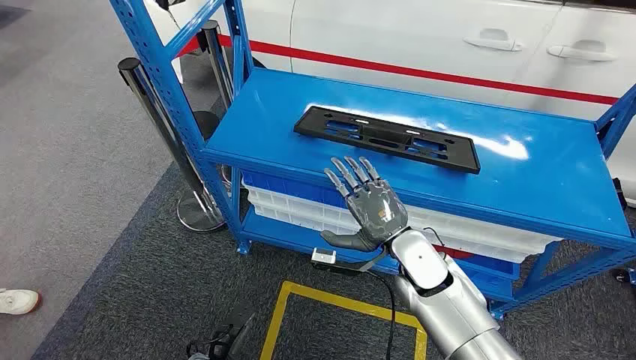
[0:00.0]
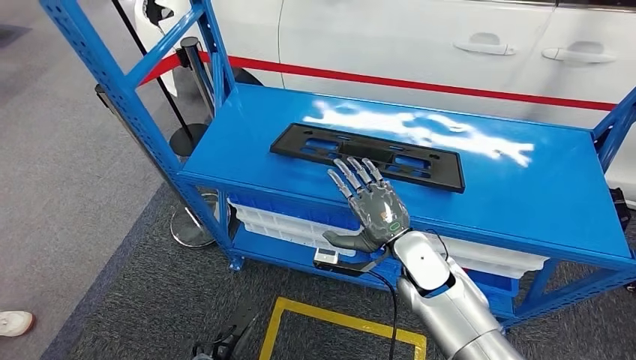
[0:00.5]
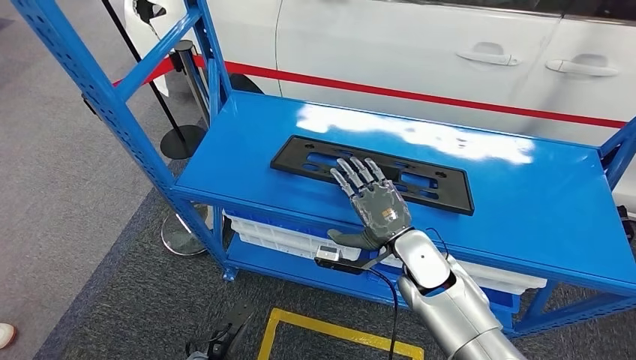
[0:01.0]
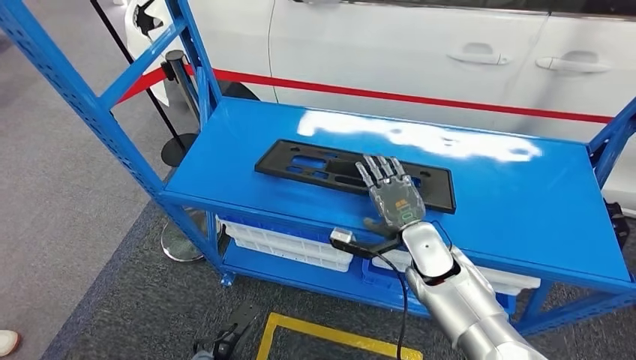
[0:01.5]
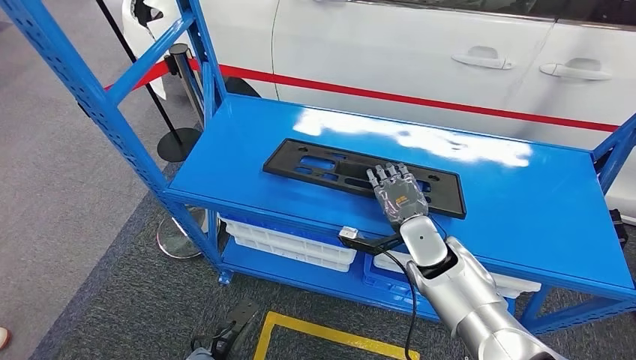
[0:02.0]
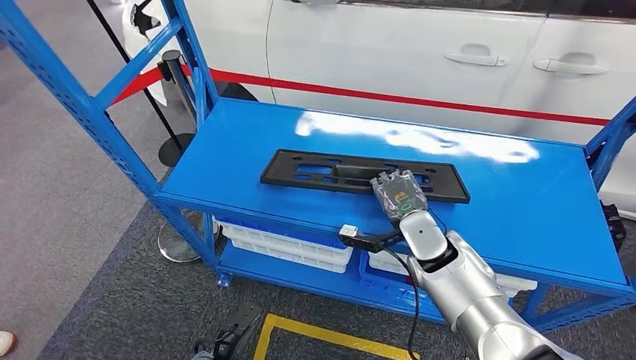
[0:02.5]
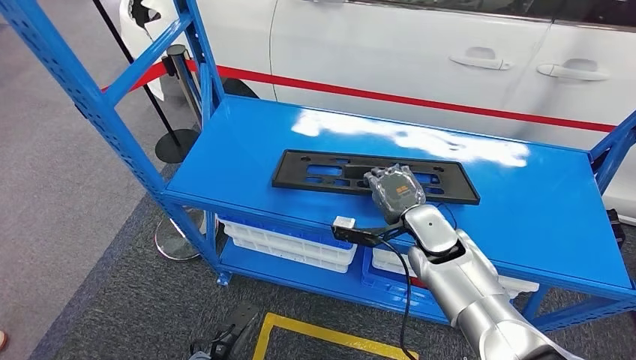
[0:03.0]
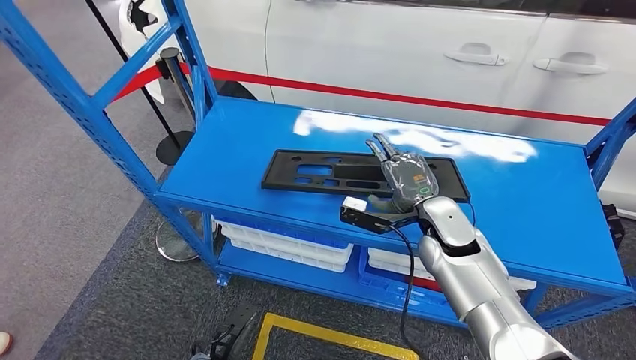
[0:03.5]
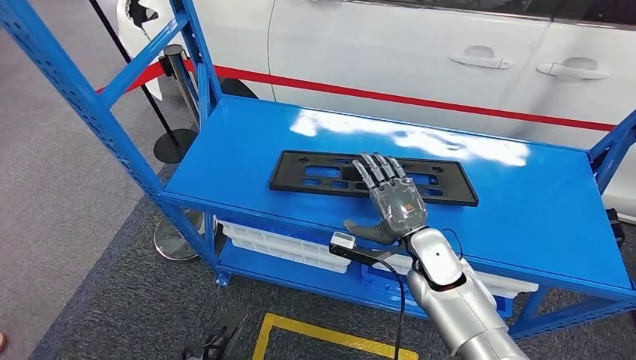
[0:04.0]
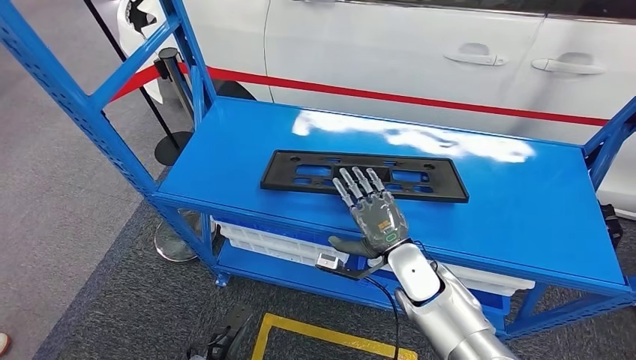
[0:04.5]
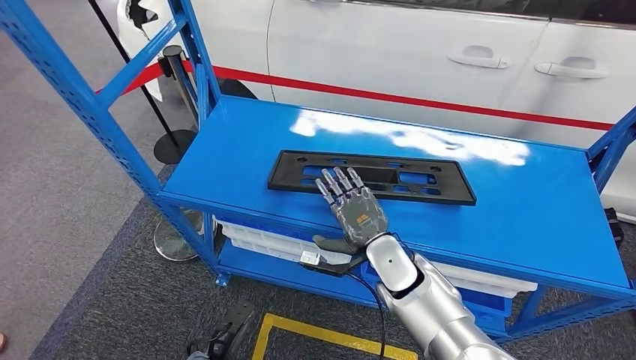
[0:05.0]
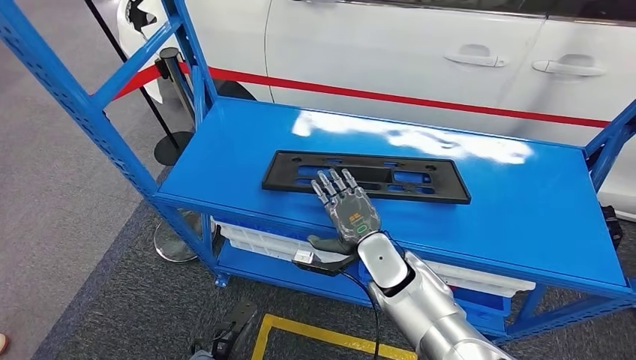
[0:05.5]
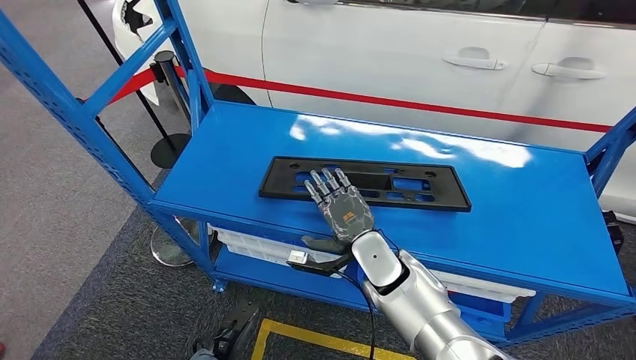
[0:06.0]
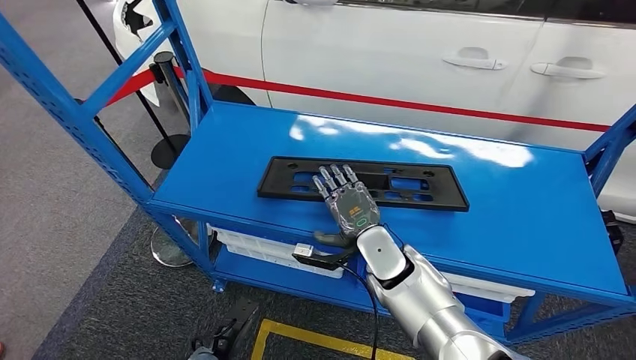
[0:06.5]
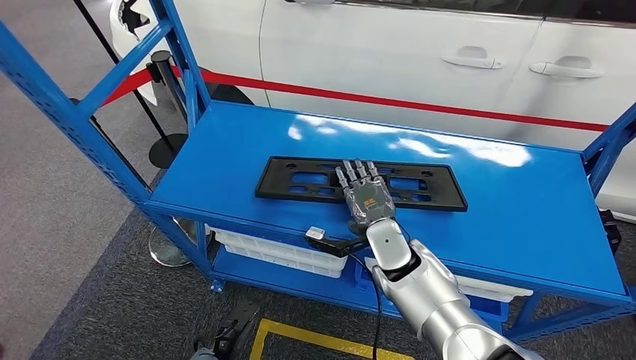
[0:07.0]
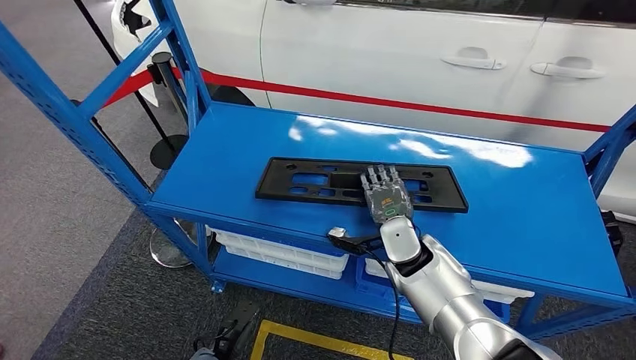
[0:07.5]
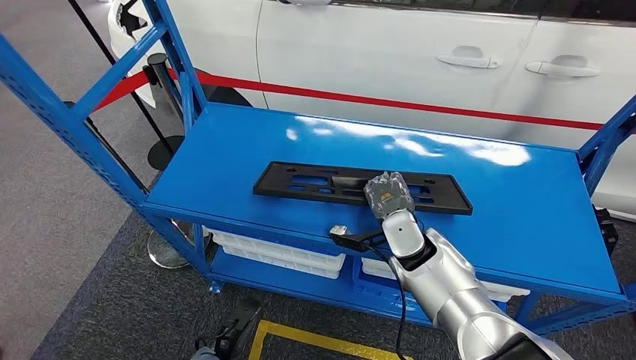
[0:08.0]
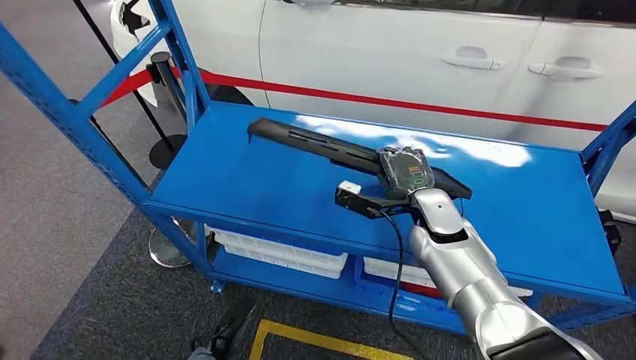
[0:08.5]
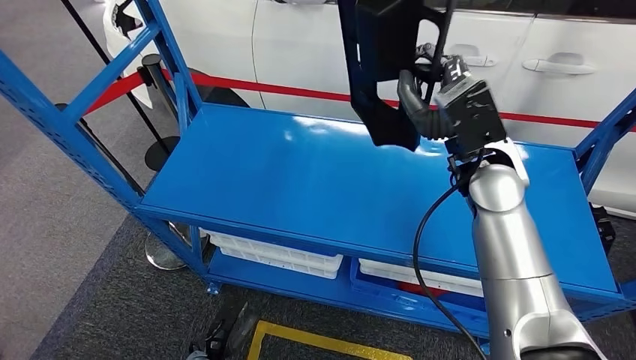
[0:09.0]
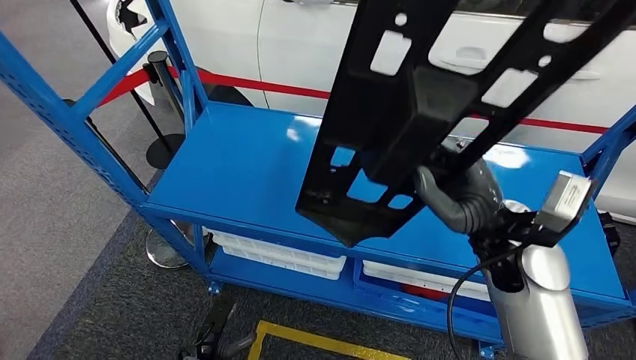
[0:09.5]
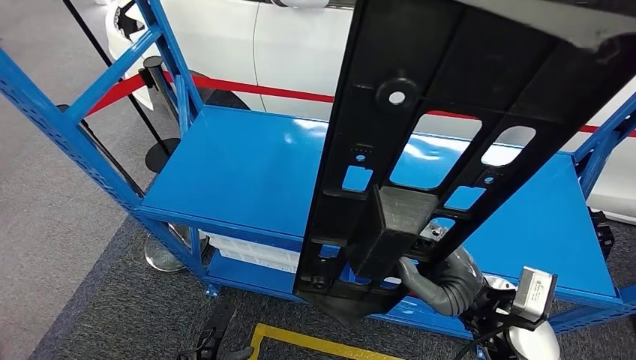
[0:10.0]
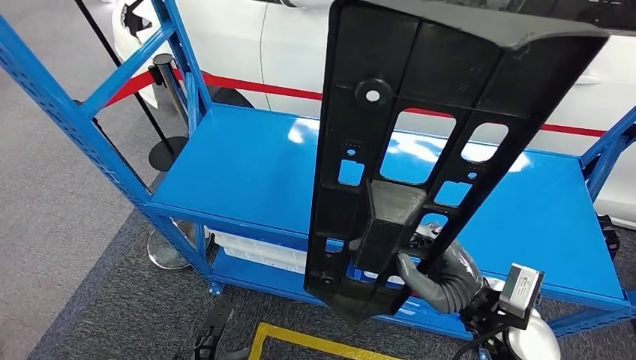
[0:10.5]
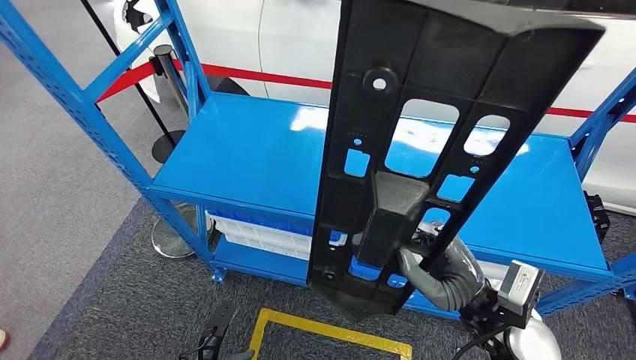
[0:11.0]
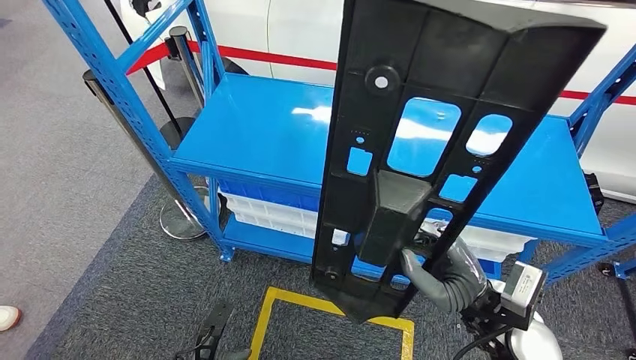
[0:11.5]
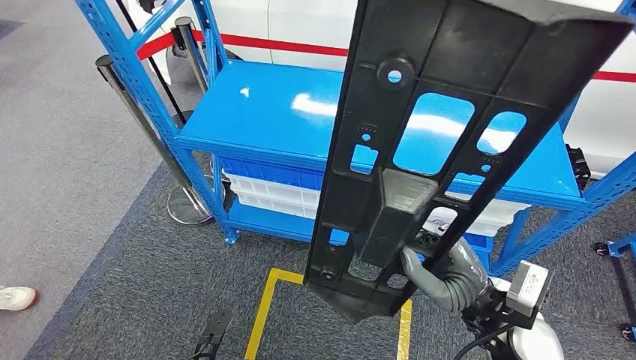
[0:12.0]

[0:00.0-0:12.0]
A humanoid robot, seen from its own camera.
Step, 0:00.0 to 0:08.5: Pick up the large material from the shelf.

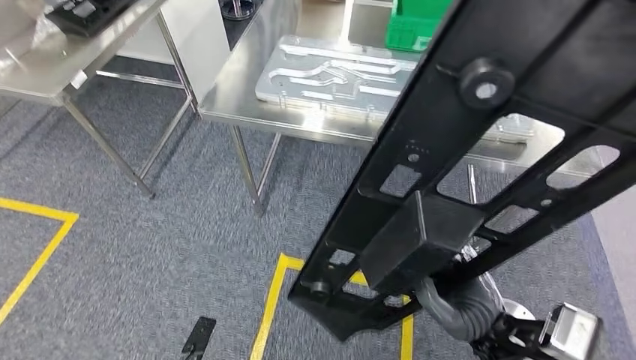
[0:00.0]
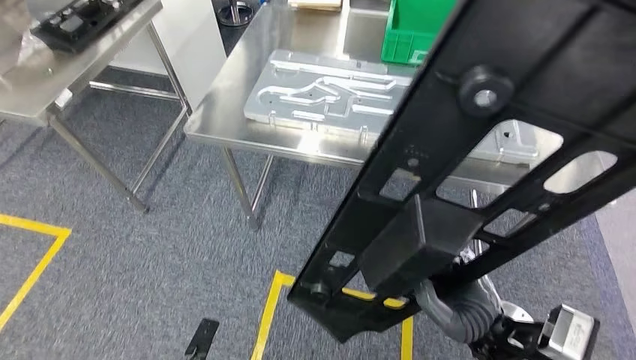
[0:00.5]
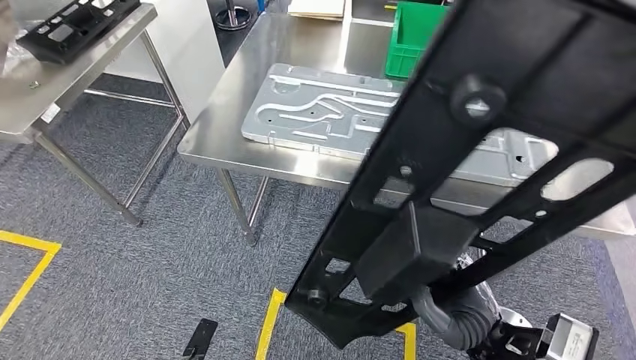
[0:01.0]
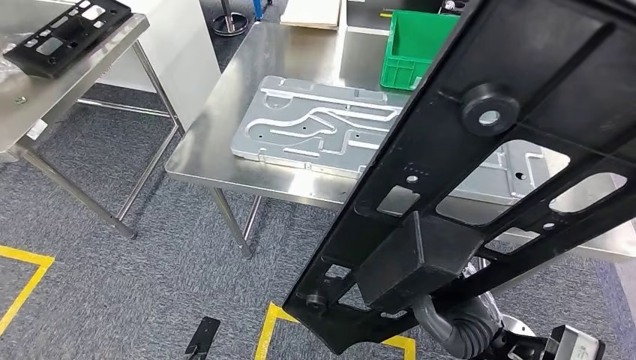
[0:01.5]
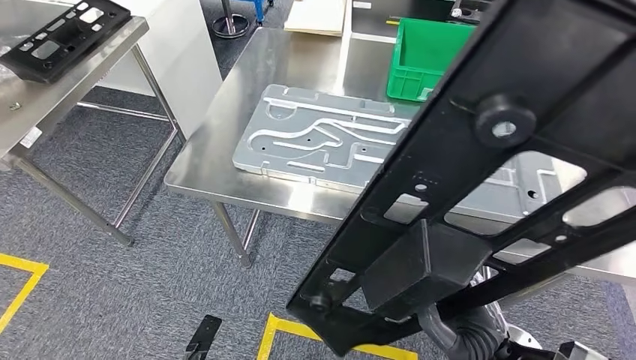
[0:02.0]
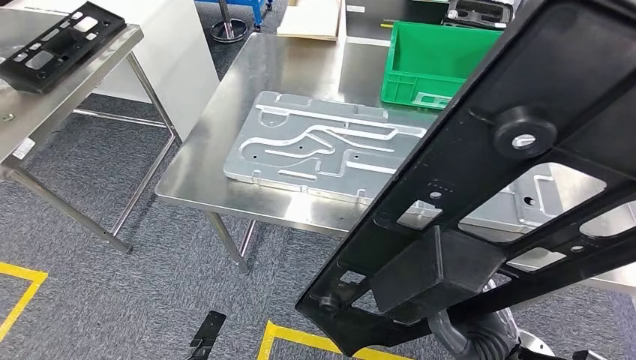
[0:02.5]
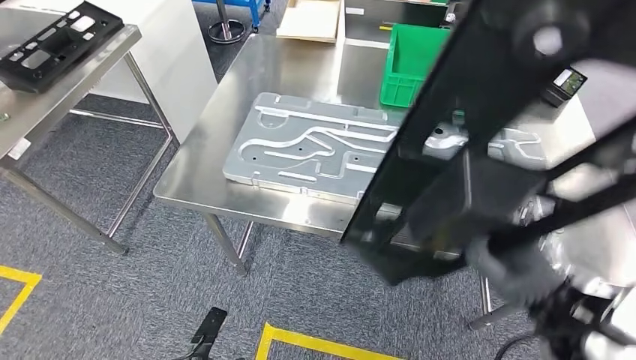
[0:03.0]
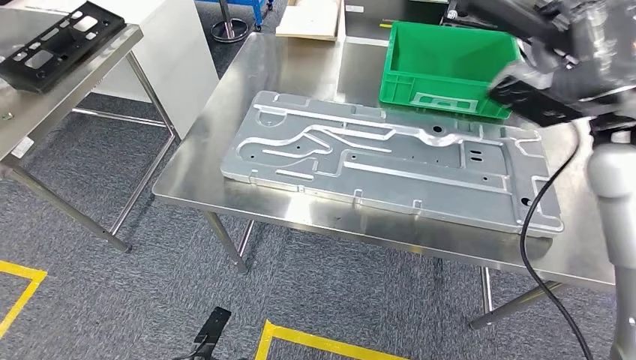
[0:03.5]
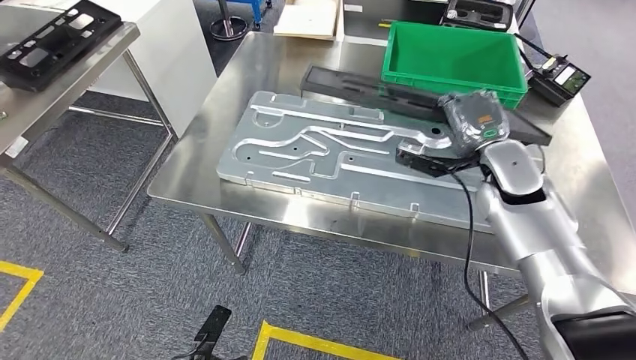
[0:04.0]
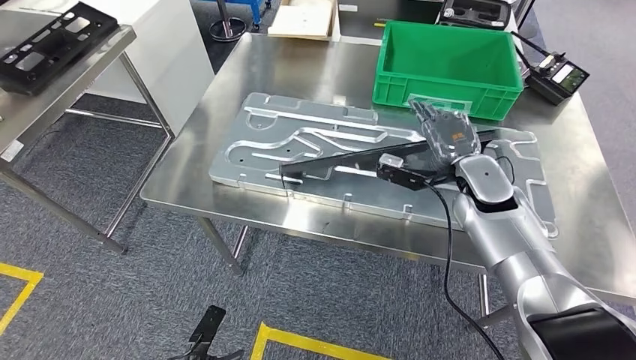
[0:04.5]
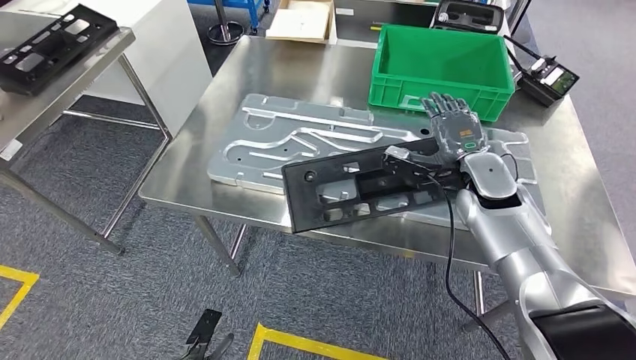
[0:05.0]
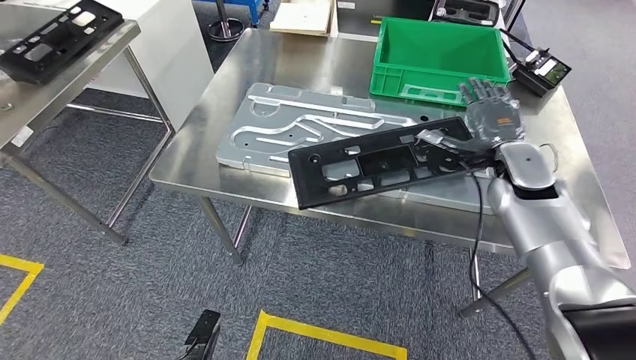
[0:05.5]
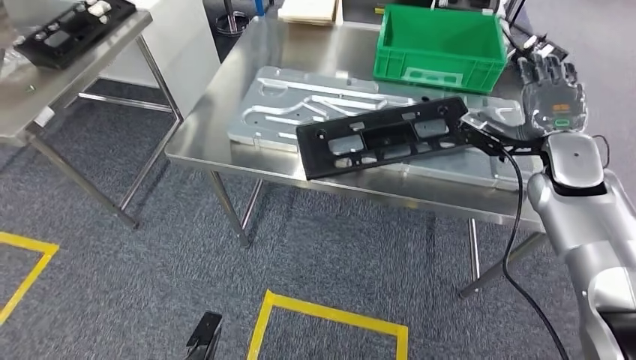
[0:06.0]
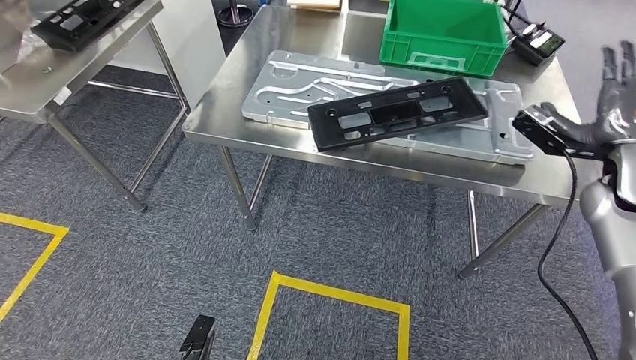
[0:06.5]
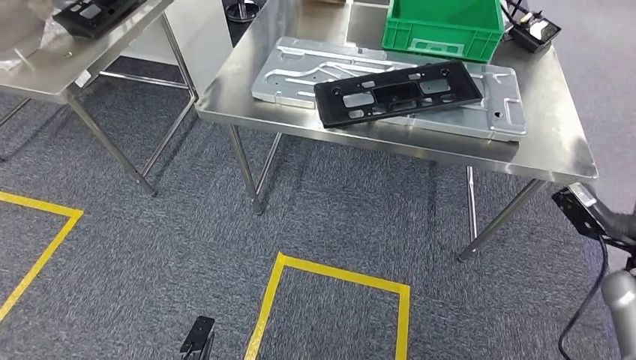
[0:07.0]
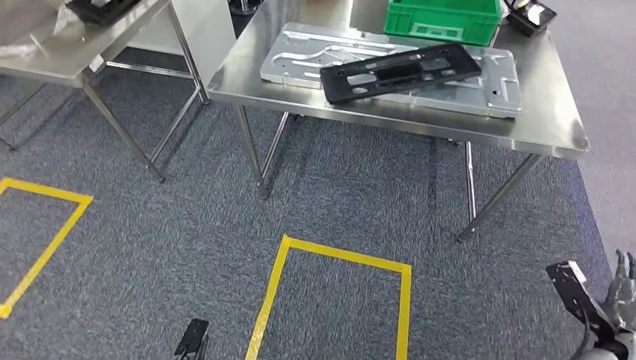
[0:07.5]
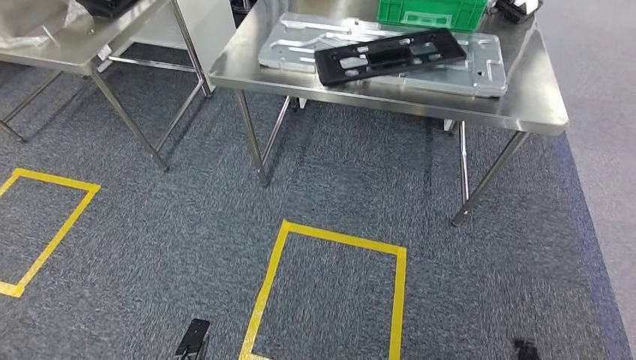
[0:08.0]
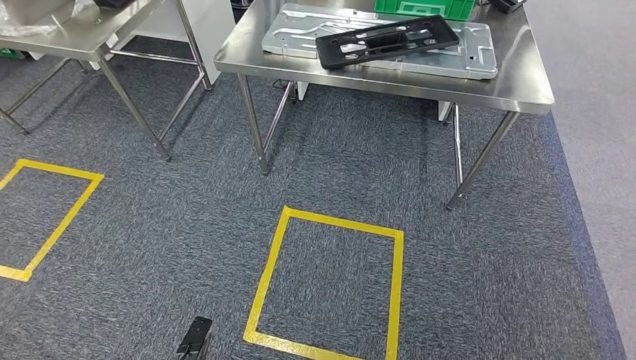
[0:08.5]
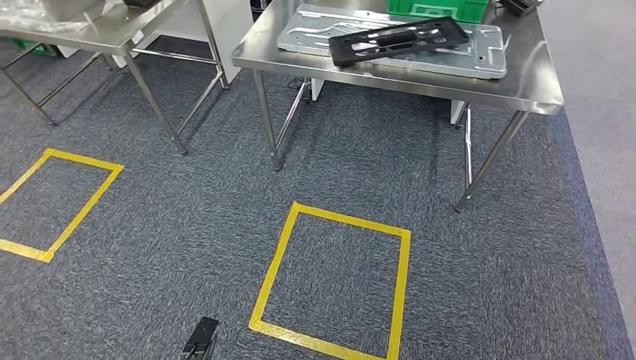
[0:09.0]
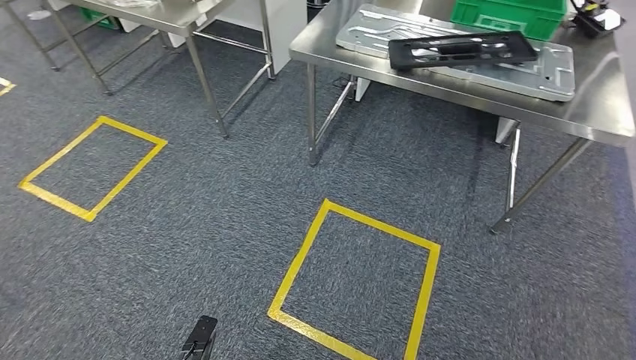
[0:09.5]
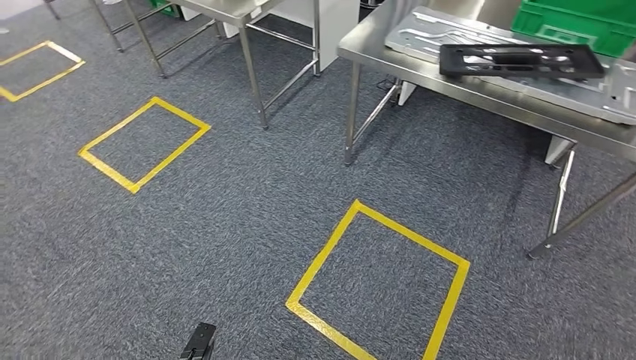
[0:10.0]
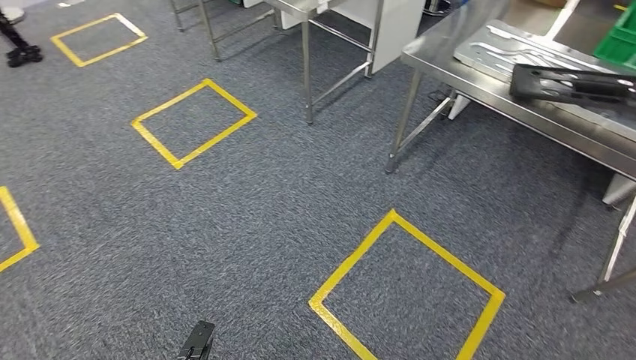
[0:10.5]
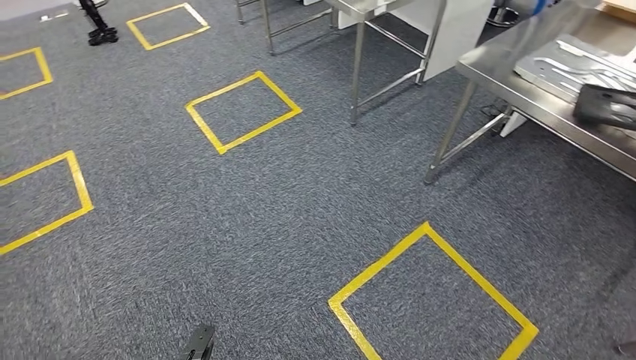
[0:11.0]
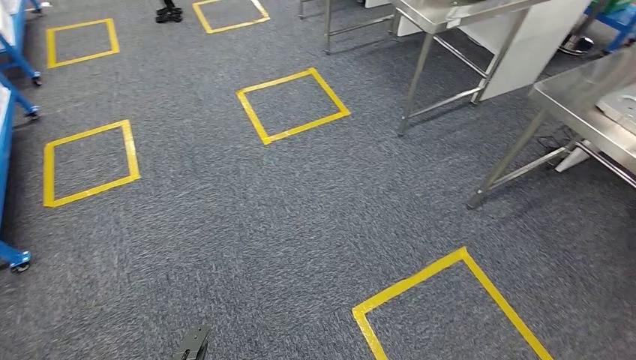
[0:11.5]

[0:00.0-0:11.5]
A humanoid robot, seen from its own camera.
Step, 0:00.0 to 0:02.0: Move the large material to the workbench.
Step, 0:03.5 to 0:07.5: Insert the large material into the corresponding slot on the workbench.
